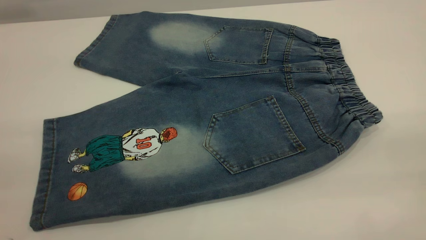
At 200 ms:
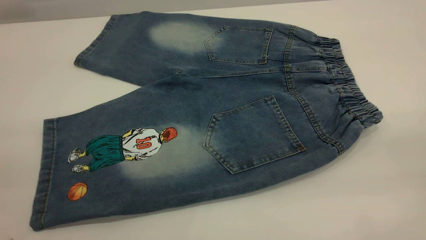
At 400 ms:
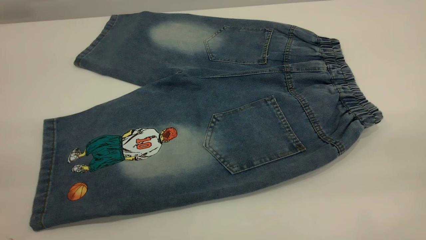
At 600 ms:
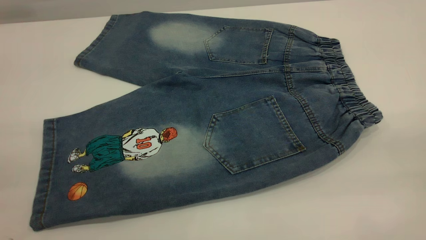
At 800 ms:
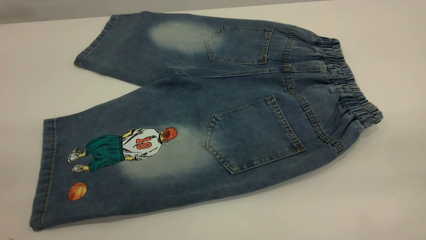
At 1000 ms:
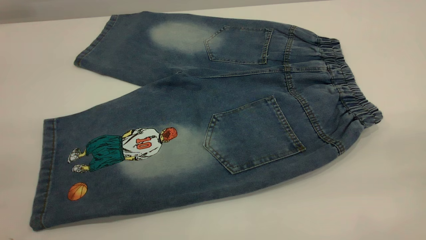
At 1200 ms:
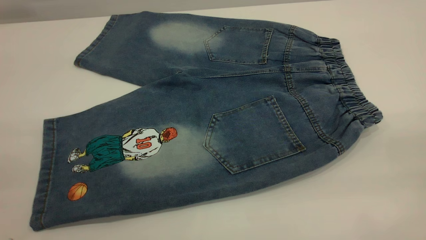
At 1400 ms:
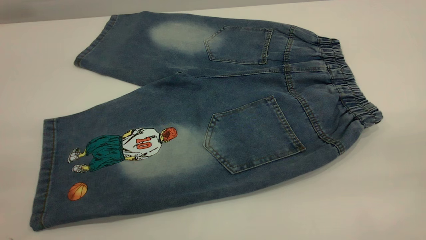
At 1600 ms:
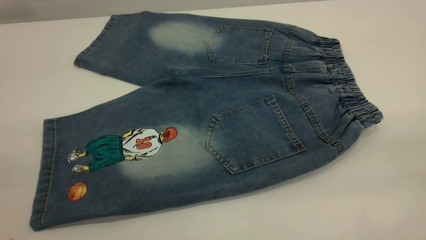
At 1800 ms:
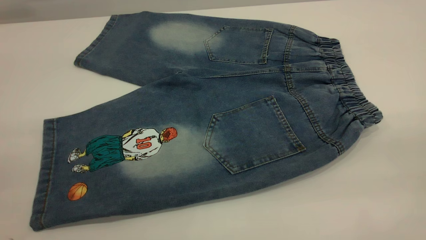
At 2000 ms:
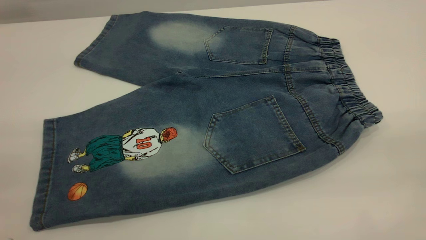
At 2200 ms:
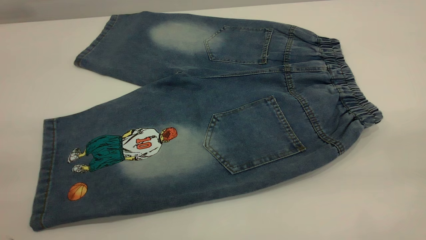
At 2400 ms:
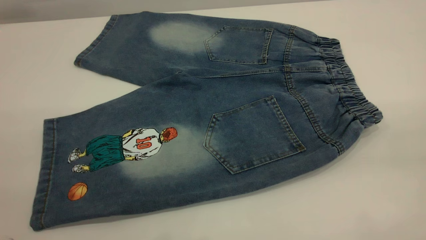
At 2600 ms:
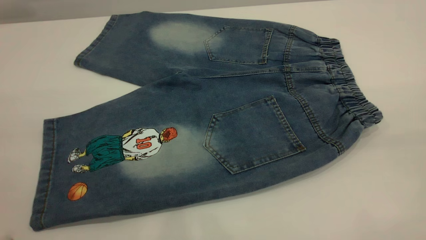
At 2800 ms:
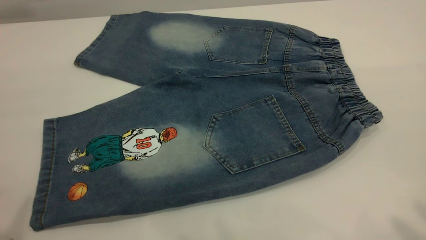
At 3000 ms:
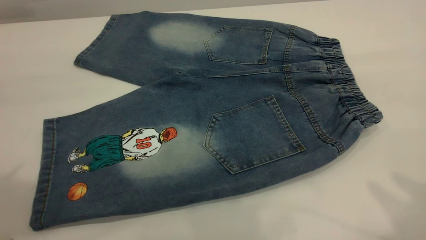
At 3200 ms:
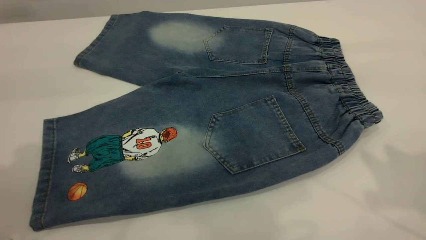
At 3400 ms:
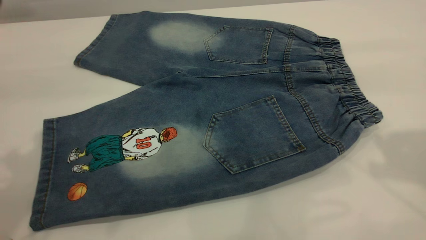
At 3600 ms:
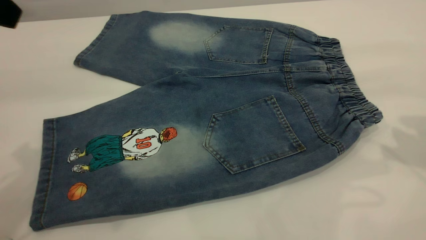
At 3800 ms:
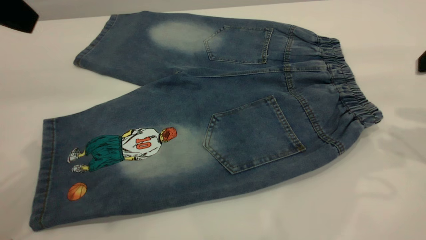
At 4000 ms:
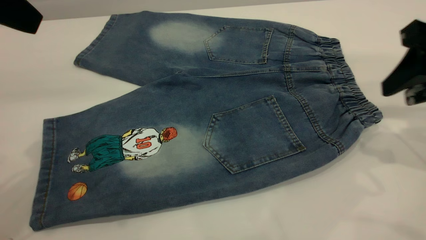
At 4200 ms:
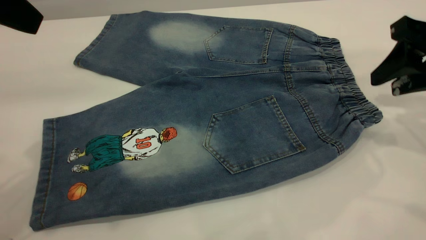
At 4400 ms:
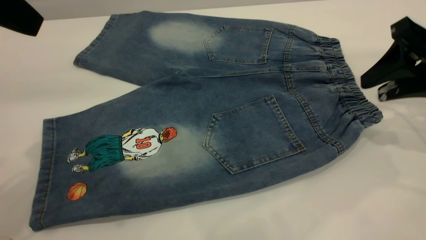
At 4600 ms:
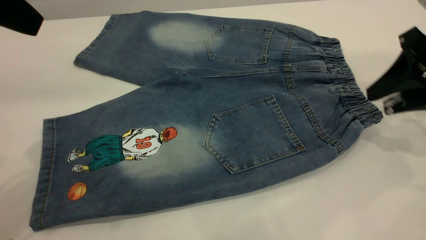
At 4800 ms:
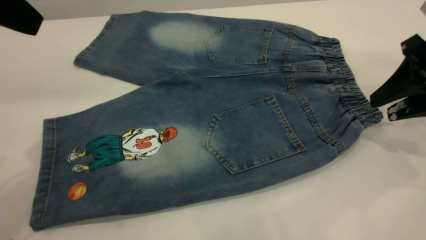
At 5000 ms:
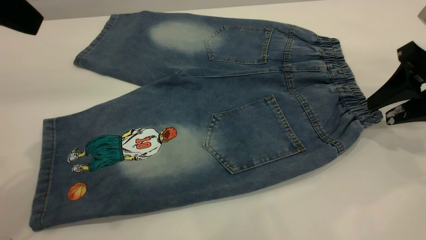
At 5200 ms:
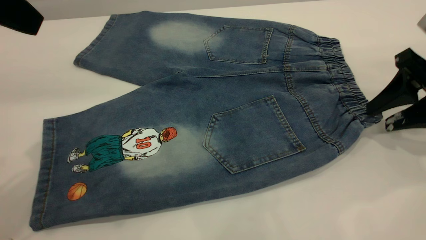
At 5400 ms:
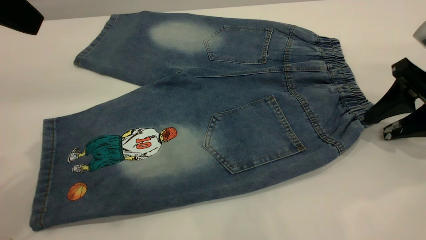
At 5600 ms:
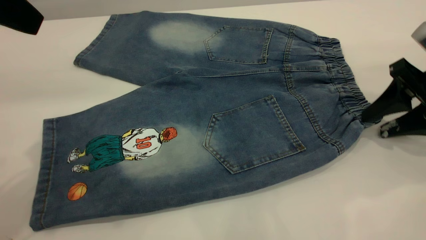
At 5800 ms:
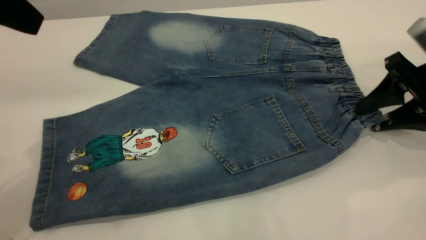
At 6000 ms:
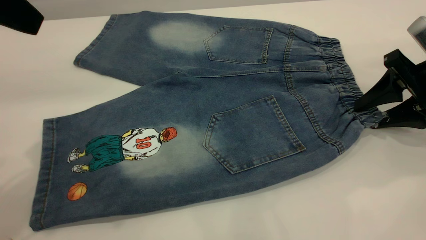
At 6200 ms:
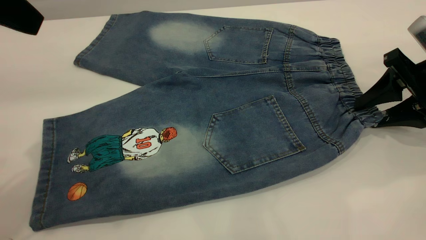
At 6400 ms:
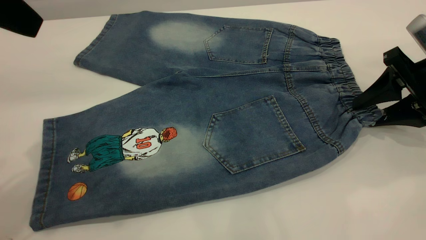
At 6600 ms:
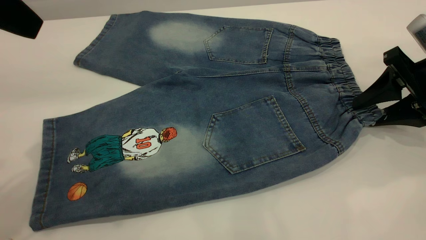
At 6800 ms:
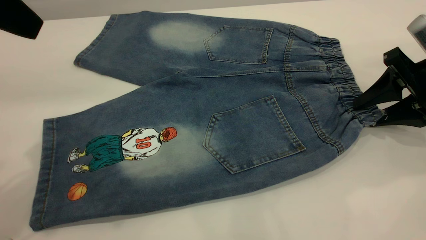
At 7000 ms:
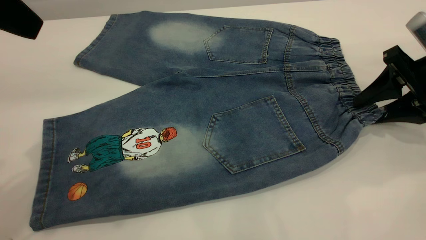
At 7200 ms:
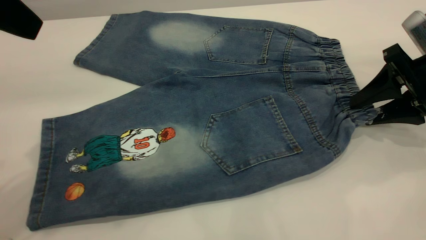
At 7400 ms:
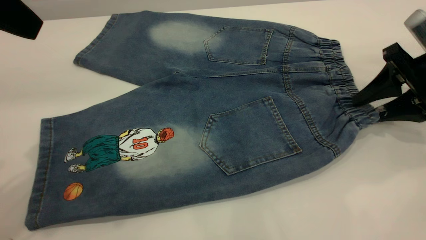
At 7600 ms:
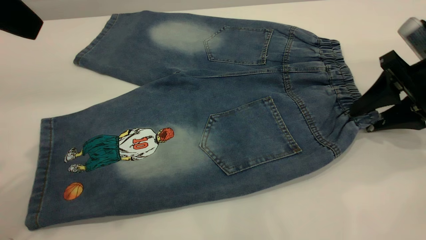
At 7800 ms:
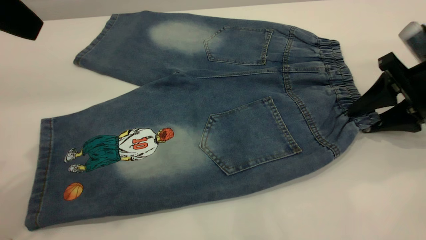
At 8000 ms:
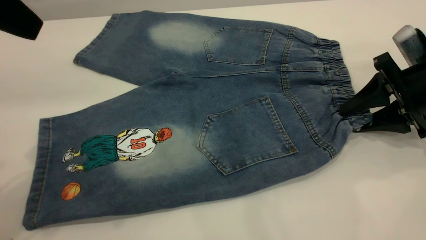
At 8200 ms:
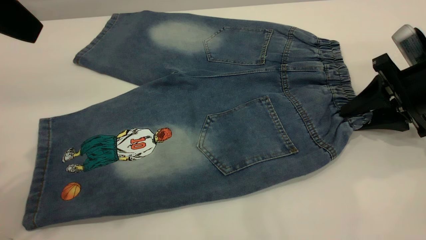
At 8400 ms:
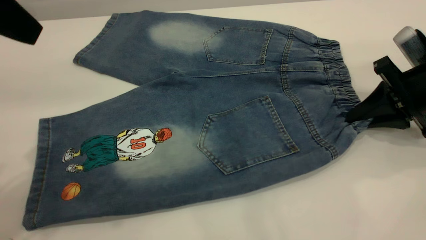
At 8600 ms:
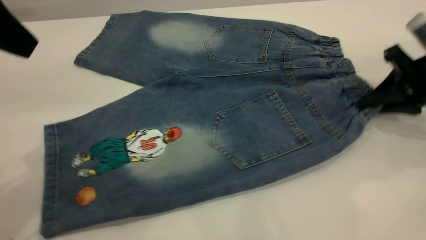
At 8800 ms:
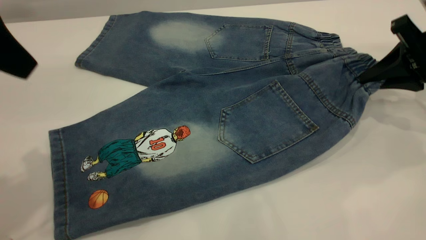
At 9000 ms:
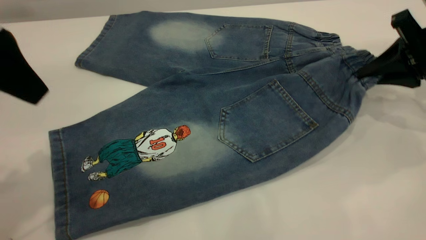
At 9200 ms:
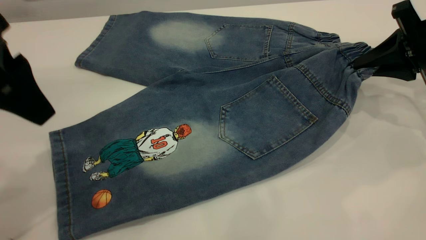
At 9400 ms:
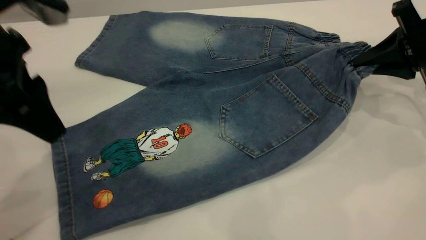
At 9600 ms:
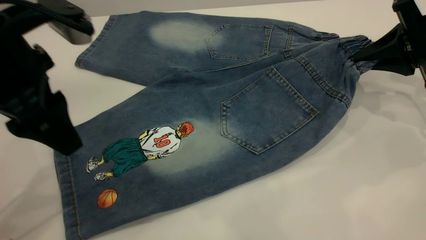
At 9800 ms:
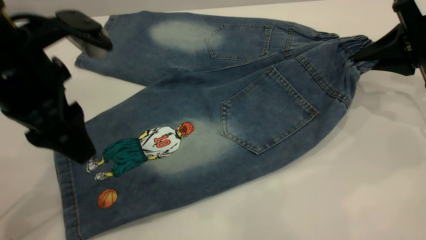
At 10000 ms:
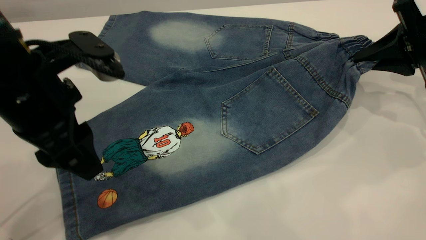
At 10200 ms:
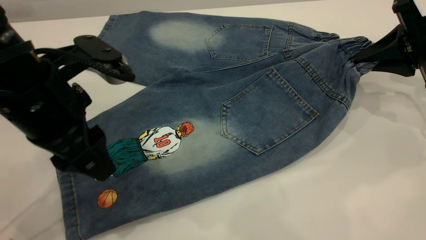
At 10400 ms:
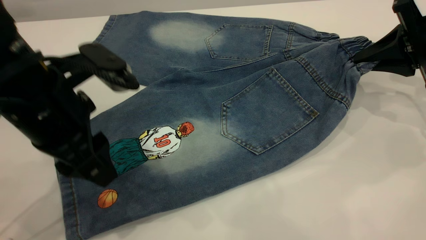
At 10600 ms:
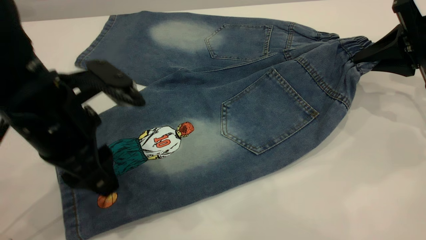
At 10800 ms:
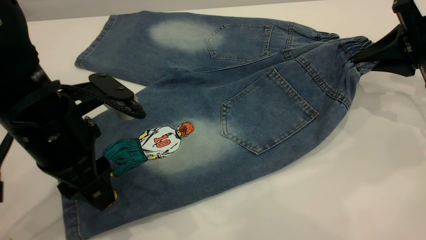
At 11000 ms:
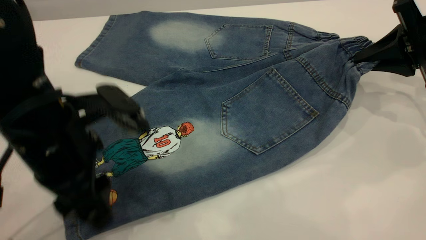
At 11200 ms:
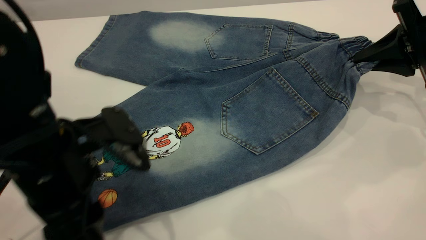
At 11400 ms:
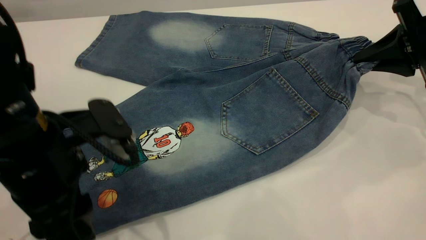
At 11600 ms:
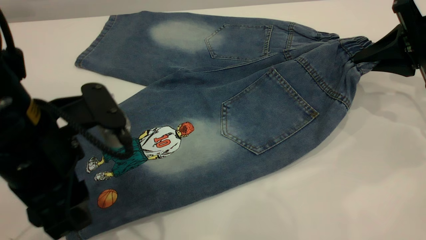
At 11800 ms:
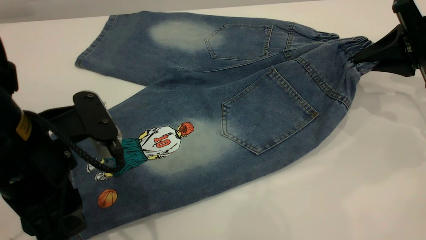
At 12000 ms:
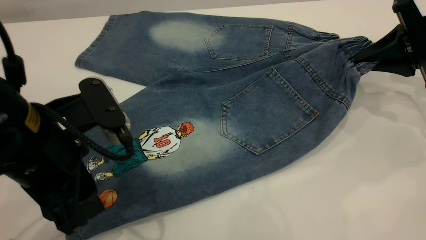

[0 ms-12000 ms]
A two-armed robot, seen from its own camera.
0 ms to 1600 ms: Both grippers stay put.
1600 ms to 3000 ms: Both grippers move forward, roughly 15 cm.
3000 ms to 4400 ms: The left gripper travels downward and forward by roughly 10 cm. The right gripper goes about 25 cm downward and forward.
4400 ms to 6000 ms: The right gripper goes some 5 cm downward.
6000 ms to 7600 ms: There are only small adjustments of the grippers.
7600 ms to 9000 ms: The right gripper closes its fingers.
9000 ms to 10400 ms: The left gripper moves downward and to the right, roughly 10 cm.
10400 ms to 12000 ms: There are only small adjustments of the grippers.

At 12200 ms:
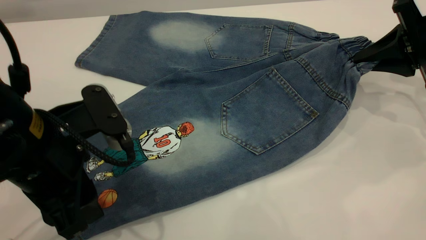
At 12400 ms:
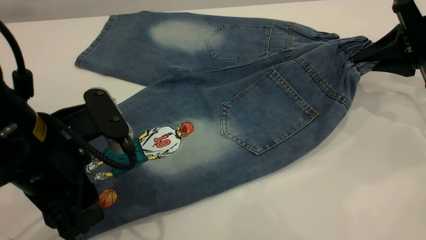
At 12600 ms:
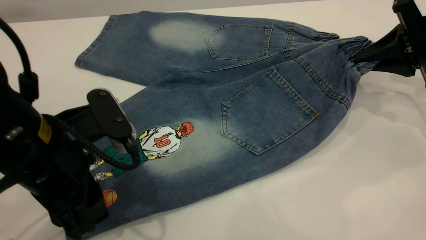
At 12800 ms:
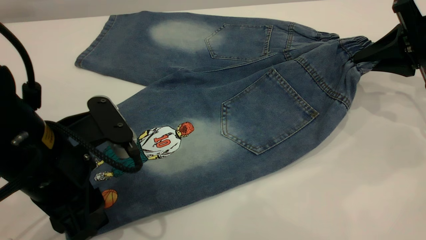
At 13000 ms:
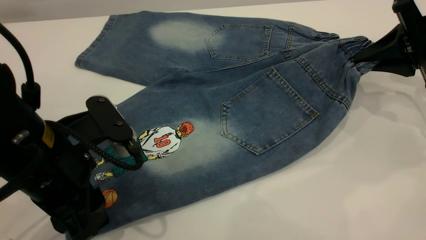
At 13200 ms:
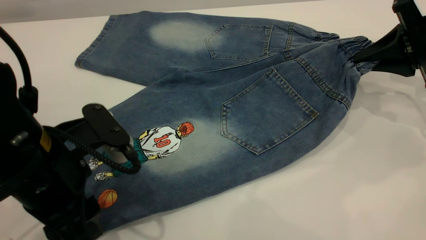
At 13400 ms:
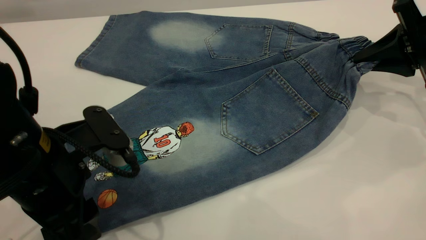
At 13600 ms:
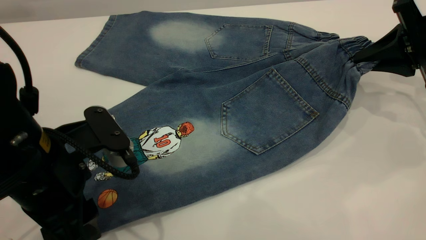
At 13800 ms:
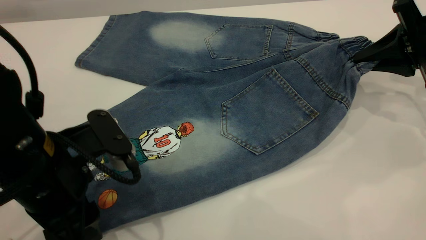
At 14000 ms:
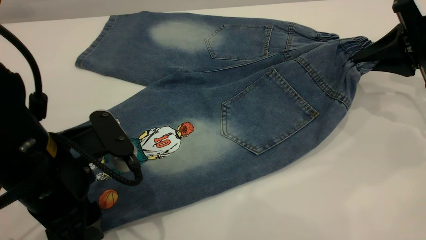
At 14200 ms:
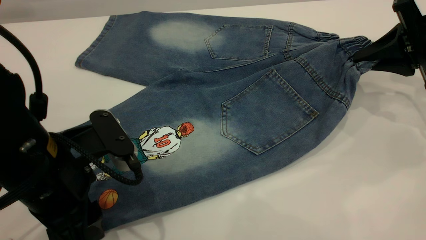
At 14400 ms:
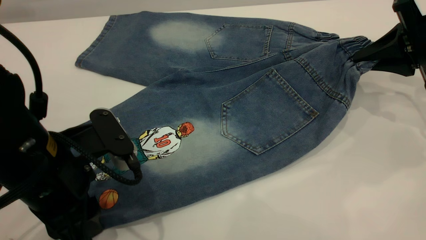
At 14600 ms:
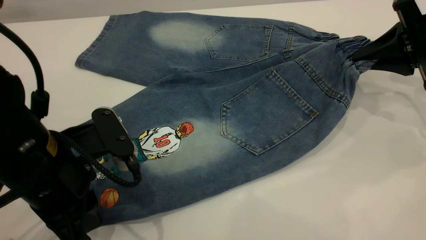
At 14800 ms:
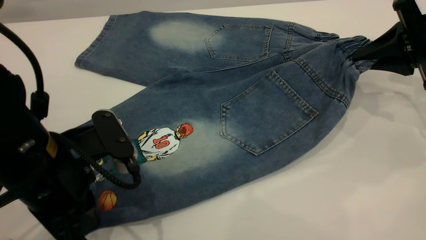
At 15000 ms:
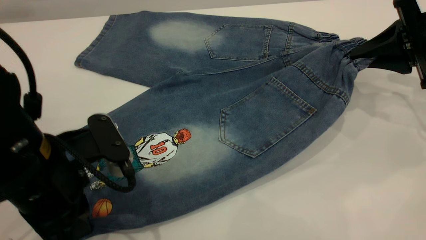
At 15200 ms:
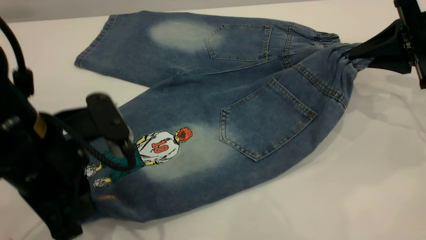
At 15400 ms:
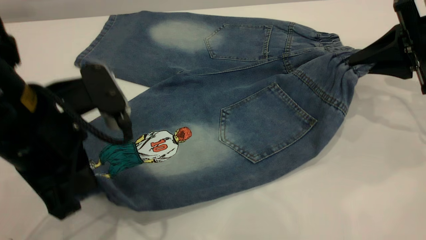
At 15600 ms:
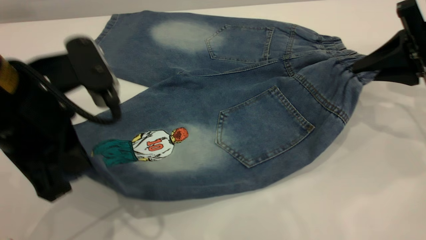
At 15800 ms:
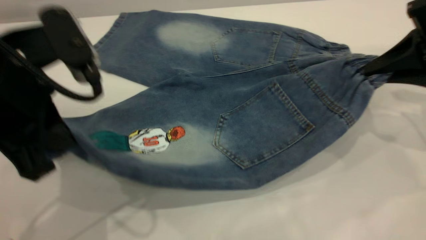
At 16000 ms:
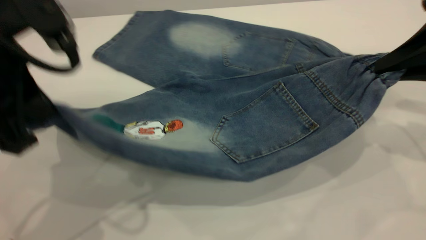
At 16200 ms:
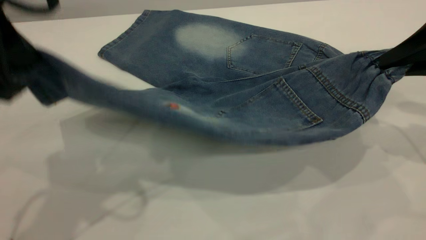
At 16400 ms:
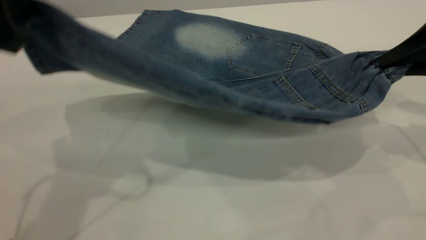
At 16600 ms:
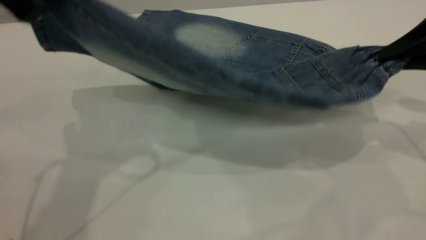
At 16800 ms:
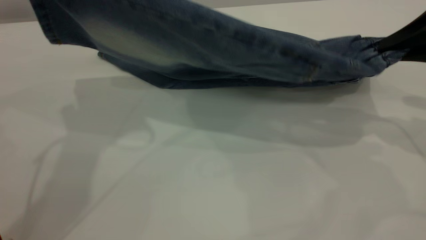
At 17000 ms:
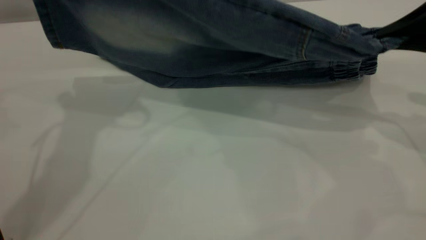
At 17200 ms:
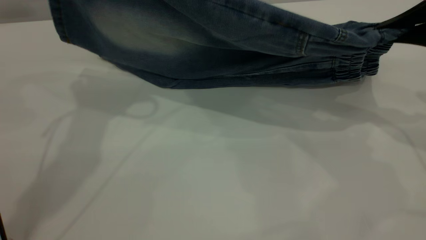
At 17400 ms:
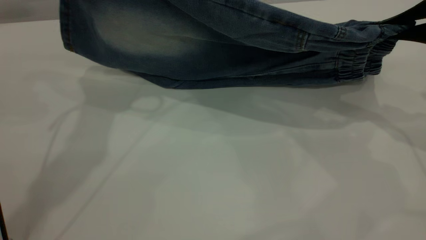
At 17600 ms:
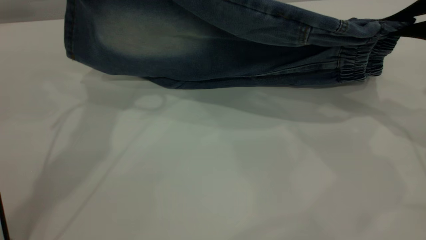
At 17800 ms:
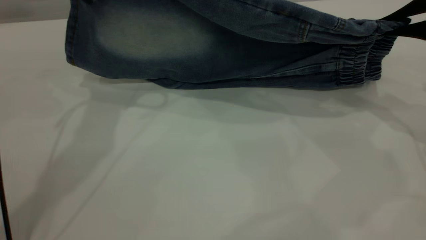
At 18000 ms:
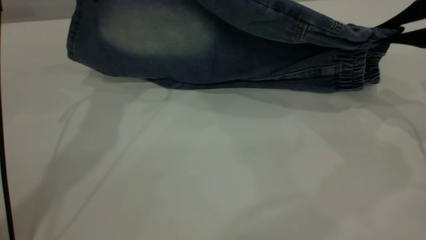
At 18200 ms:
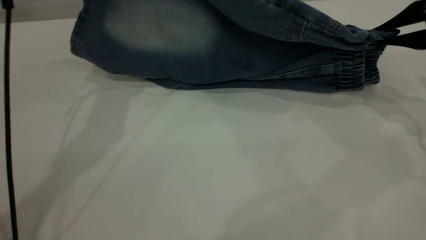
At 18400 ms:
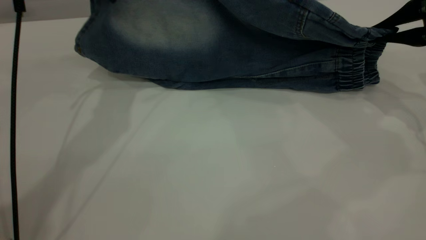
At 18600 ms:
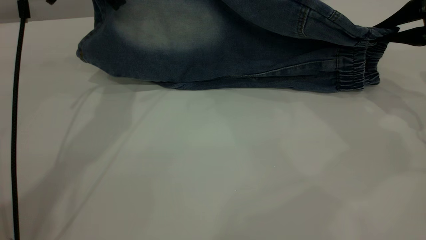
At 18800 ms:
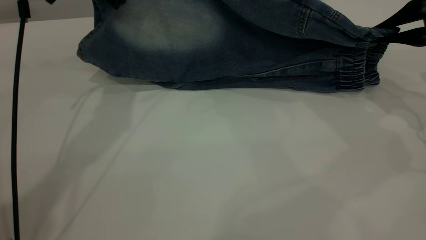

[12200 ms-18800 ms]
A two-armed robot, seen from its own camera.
12200 ms to 13800 ms: The grippers stay close to where they were, moving slightly.
13800 ms to 15400 ms: The left gripper moves upward, some 5 cm, and closes.
15400 ms to 17200 ms: The right gripper travels upward by approximately 5 cm. The left gripper shifts roughly 20 cm forward and upward.
17200 ms to 18800 ms: The right gripper moves about 5 cm. Meanwhile the left gripper goes approximately 10 cm forward and downward.
